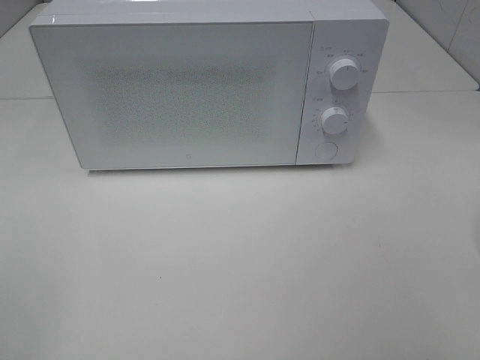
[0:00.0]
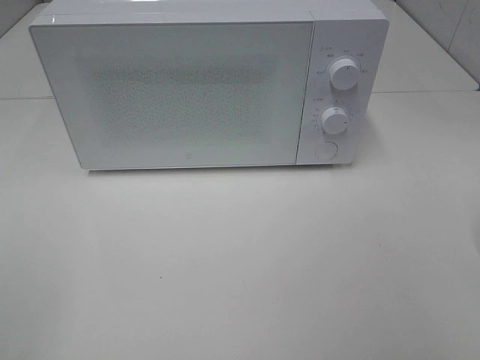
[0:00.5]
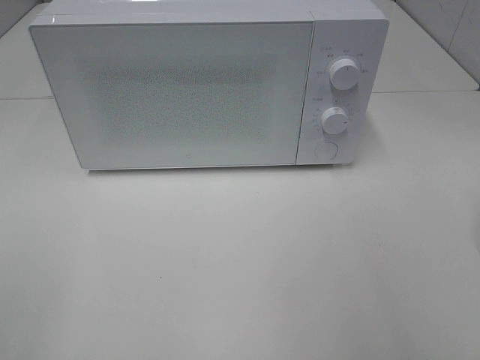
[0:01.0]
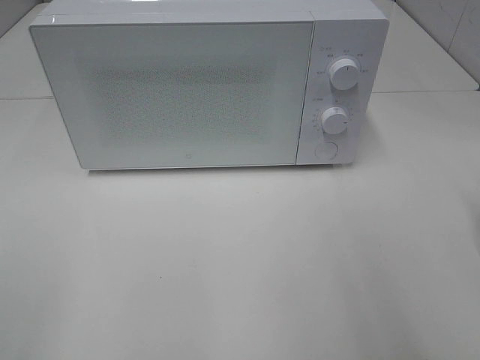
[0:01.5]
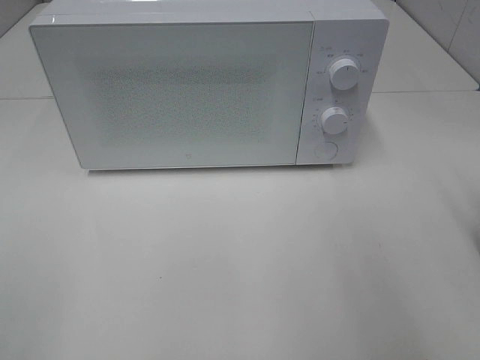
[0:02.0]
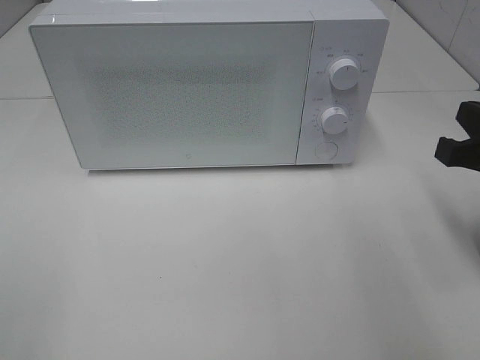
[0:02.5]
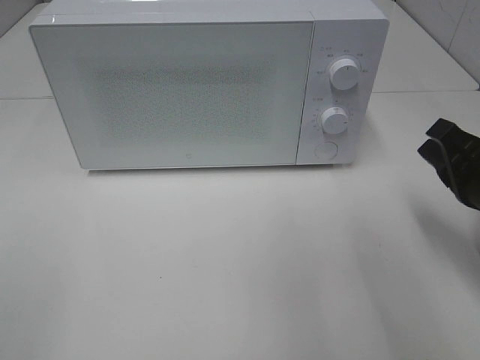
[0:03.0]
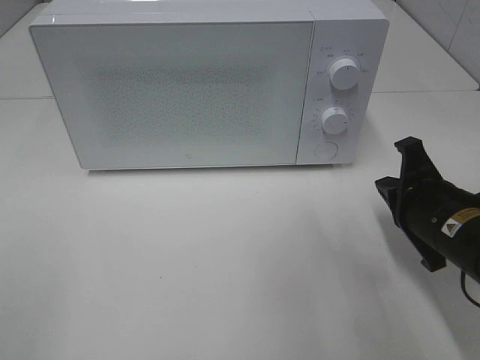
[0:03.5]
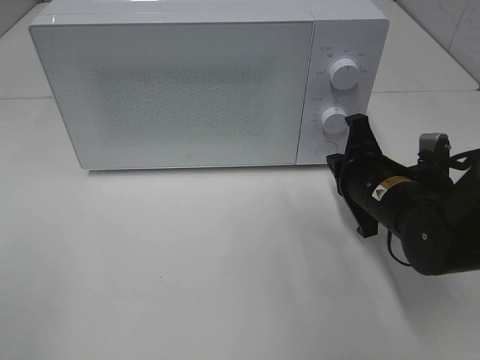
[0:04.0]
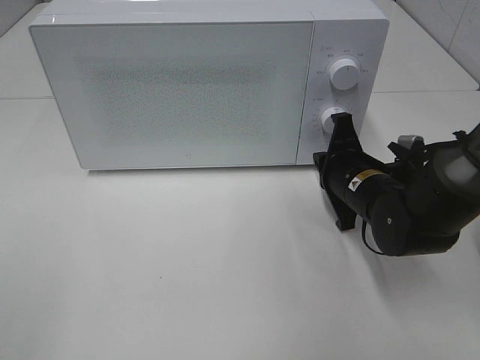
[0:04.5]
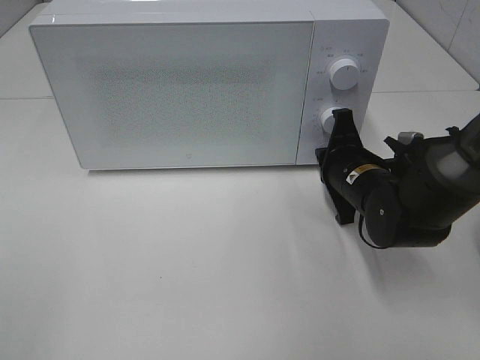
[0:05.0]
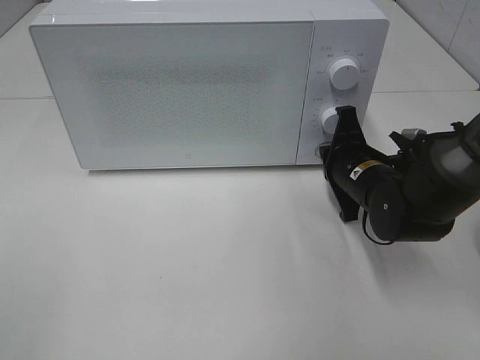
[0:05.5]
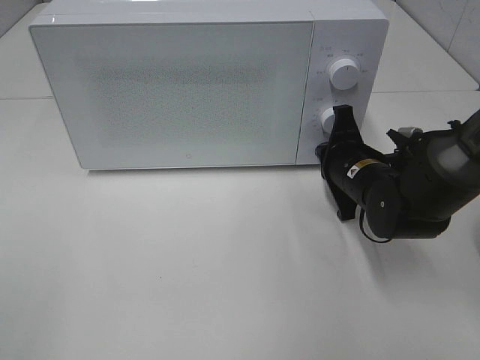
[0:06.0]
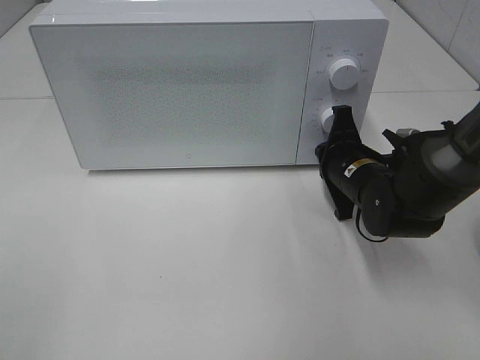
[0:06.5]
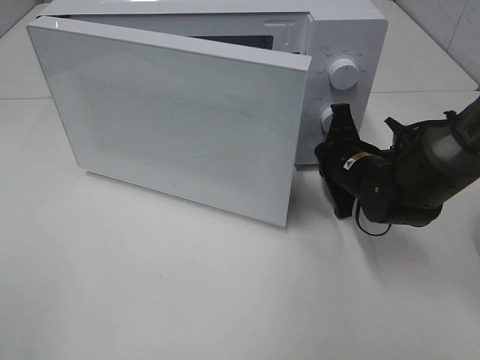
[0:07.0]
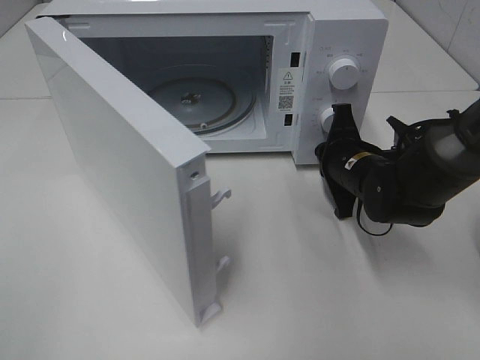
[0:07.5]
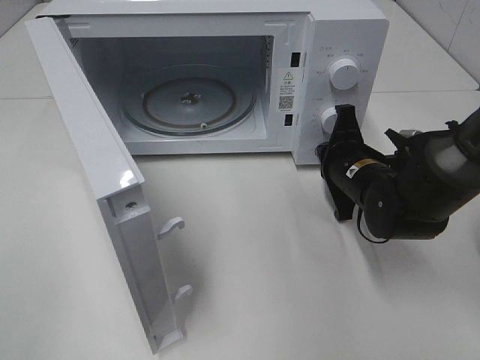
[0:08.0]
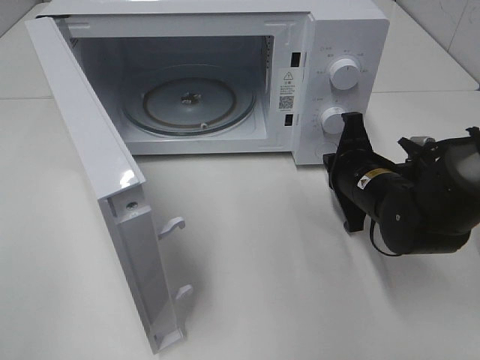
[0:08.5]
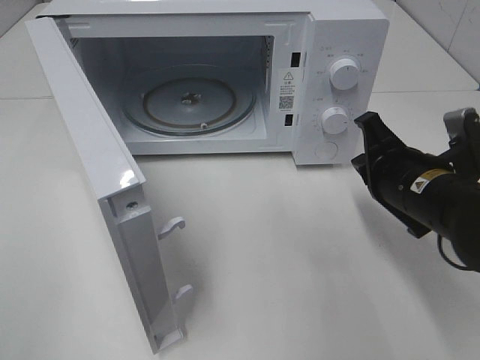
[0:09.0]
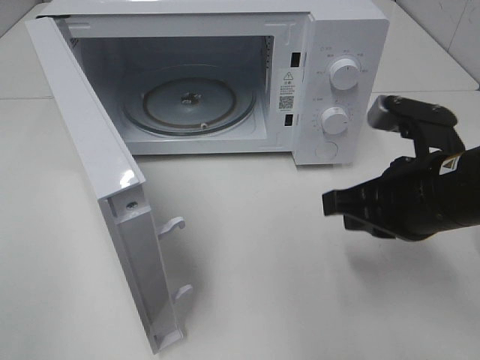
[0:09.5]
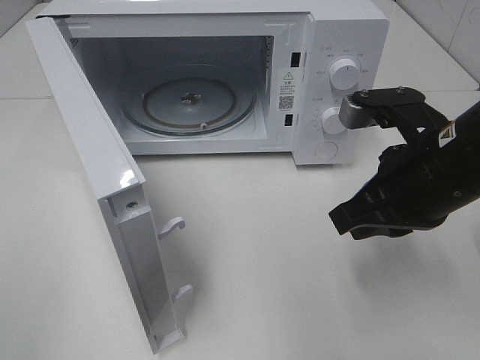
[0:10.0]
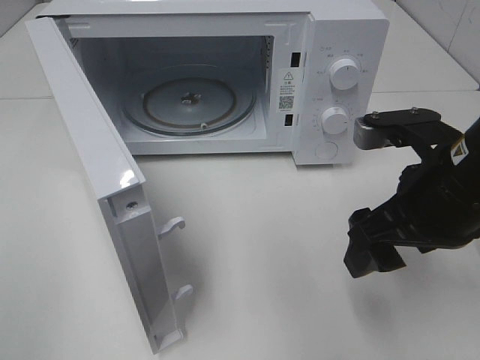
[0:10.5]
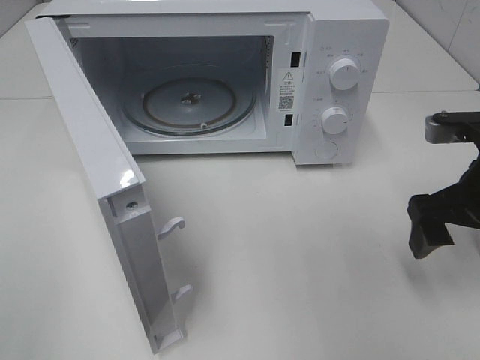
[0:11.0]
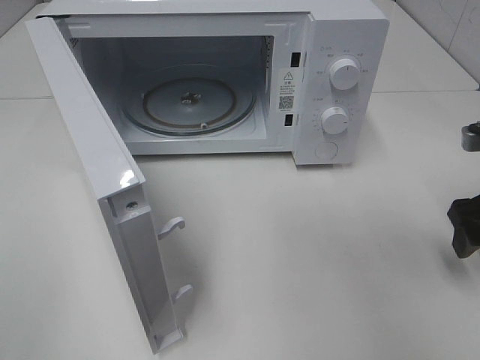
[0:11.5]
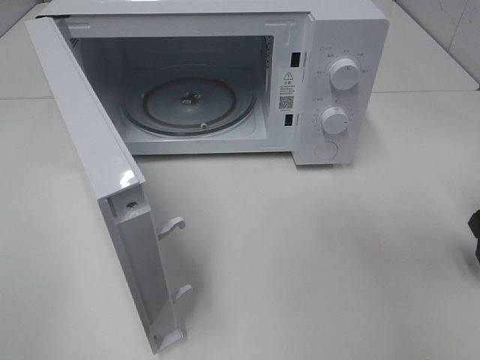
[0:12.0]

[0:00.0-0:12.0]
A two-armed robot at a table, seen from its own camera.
Task of the whole recording: Heat the burger.
Step, 0:00.0 to 0:08.0: Right hand: press the switch.
0:02.0 to 0:04.0: The right gripper travels downward, forward and to the left by roughly 25 cm, and closes.
0:04.0 to 0:06.0: The right gripper changes place by some 5 cm.
0:08.0 to 0:10.0: The right gripper is displaced upward and backward by about 15 cm.
0:10.0 to 0:12.0: The right gripper goes roughly 15 cm to the right, and opens.

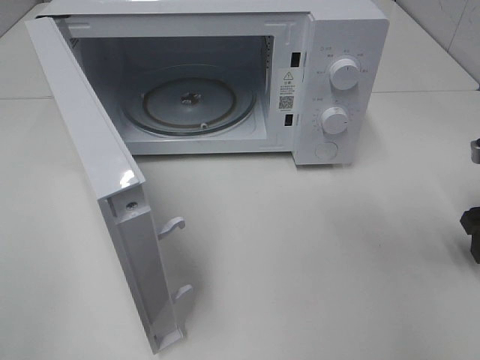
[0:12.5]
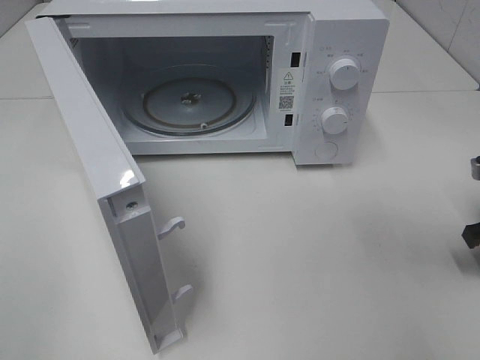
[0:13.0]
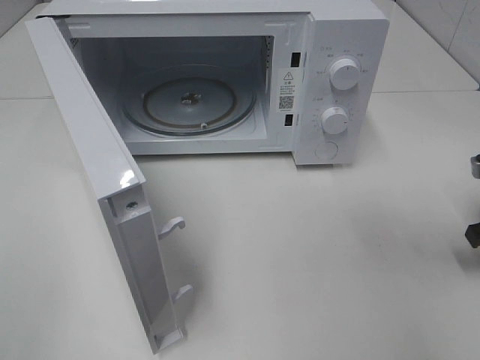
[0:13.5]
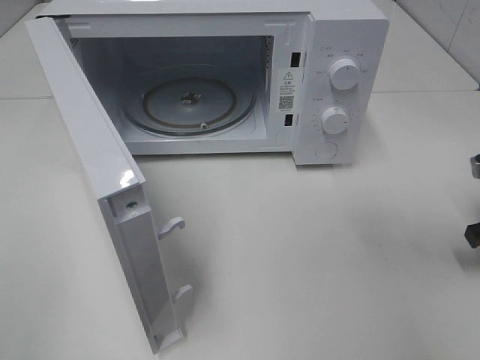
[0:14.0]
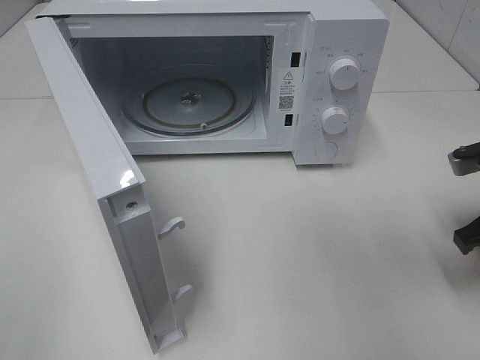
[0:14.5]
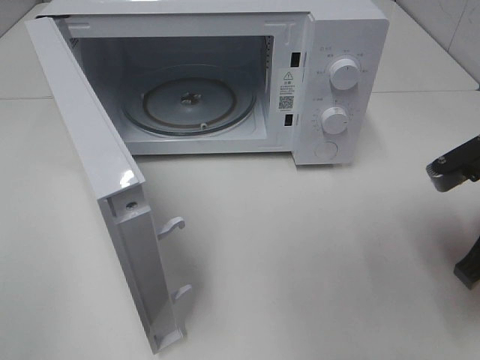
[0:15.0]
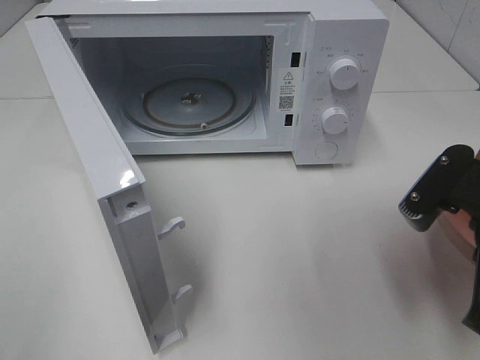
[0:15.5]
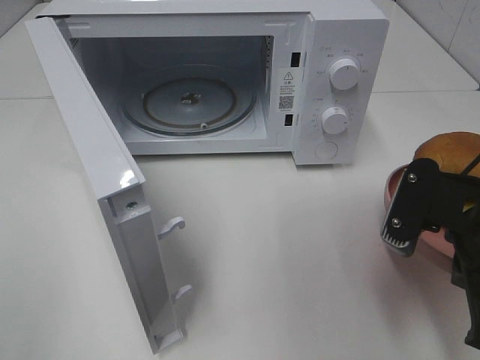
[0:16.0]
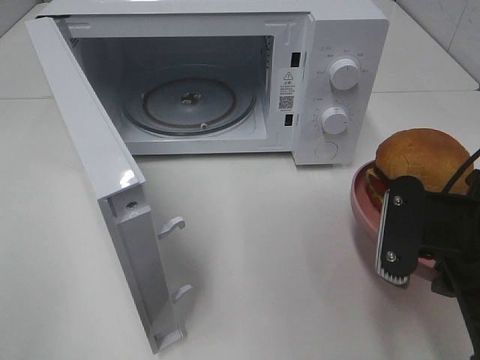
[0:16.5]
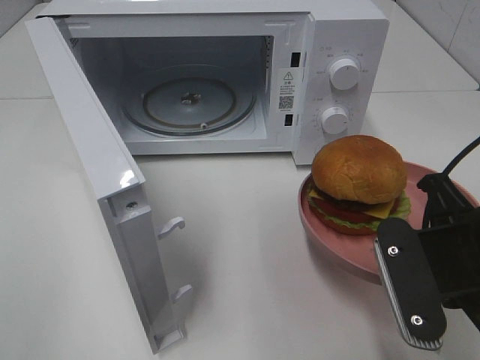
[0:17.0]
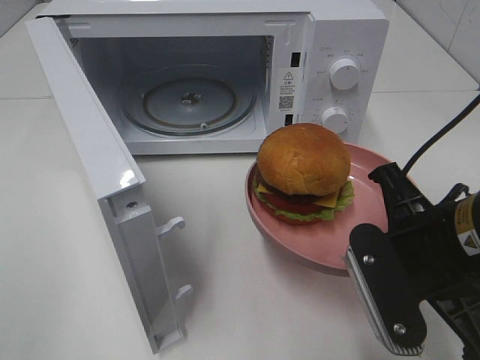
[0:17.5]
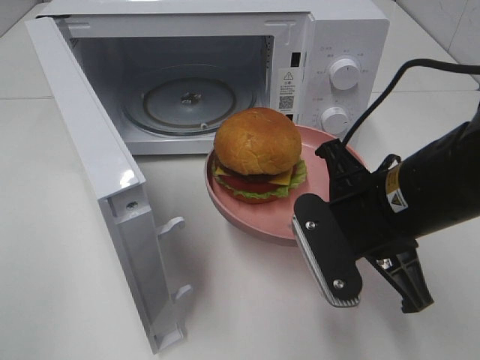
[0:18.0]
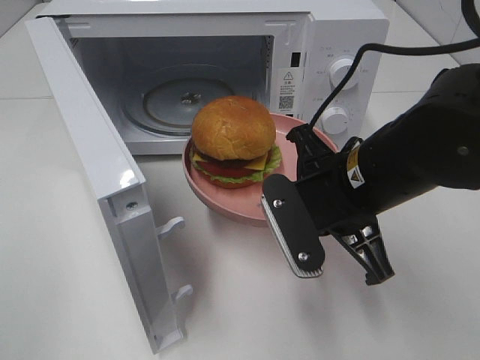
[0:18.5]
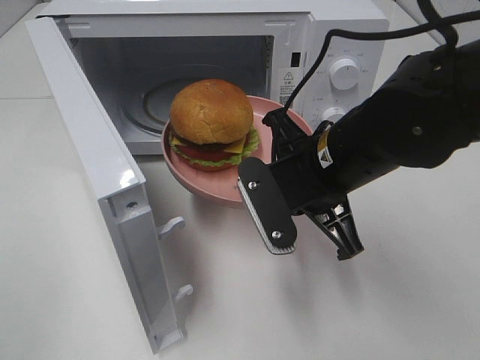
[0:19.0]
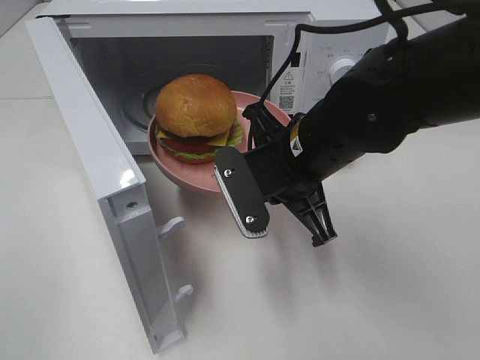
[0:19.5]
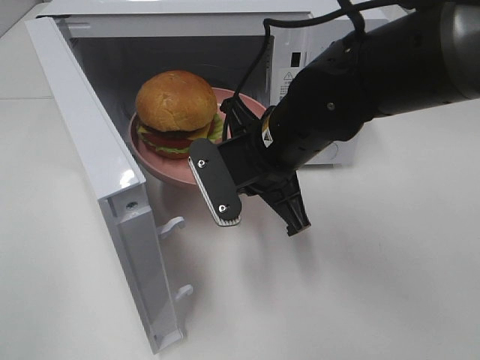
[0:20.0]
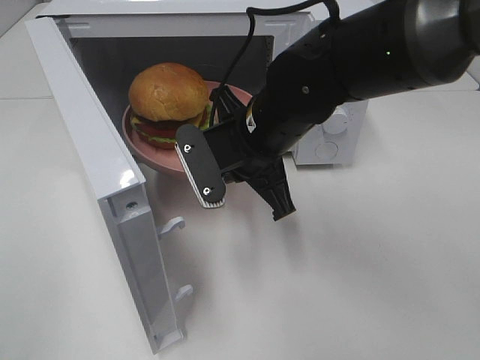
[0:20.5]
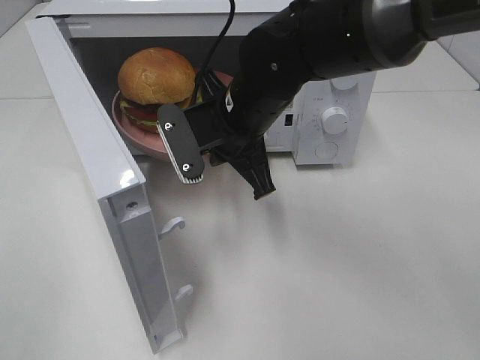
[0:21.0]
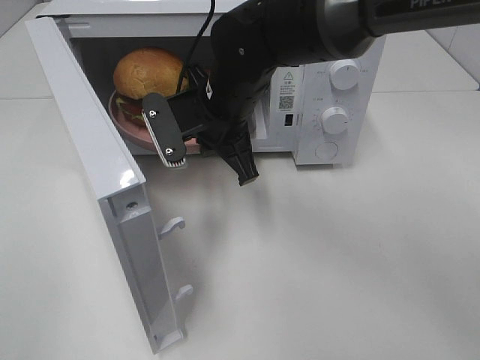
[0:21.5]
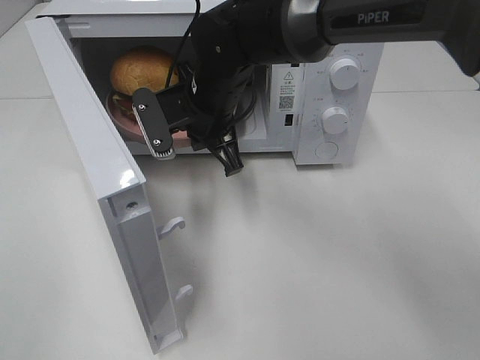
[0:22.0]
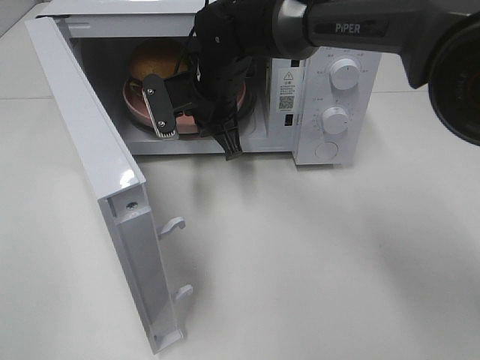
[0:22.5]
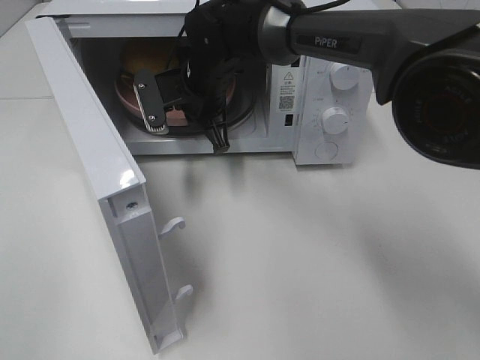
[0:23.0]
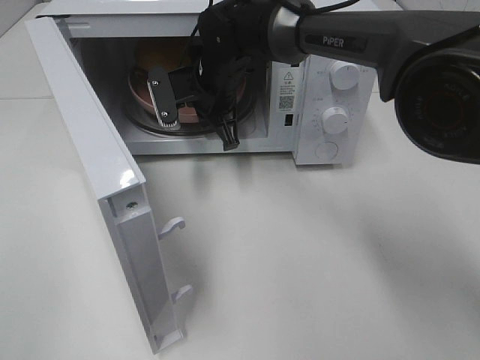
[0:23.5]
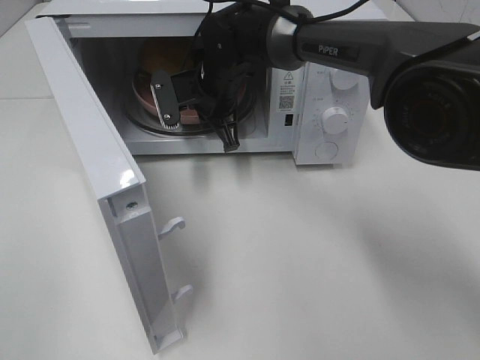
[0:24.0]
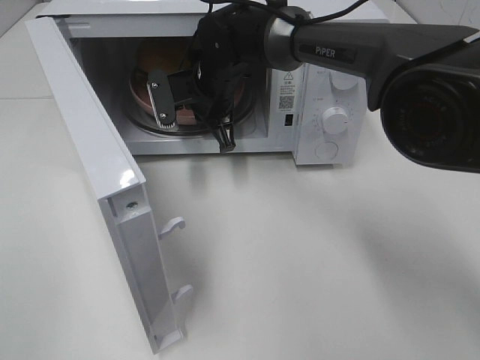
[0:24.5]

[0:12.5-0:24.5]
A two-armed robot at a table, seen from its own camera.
Task of the whole recording: Heat the burger.
0:12.5 to 0:14.5: The right gripper shifts by approximately 5 cm, and closes its fingers.
0:14.5 to 0:16.5: The right gripper goes some 15 cm to the left and backward.
0:16.5 to 0:18.5: The right gripper is displaced to the left and forward by about 10 cm.
0:18.5 to 0:20.5: The right gripper goes about 10 cm to the left and forward.
0:20.5 to 0:22.5: The right gripper heads forward and to the left, covering roughly 15 cm.
0:22.5 to 0:24.5: The grippers make only small movements.

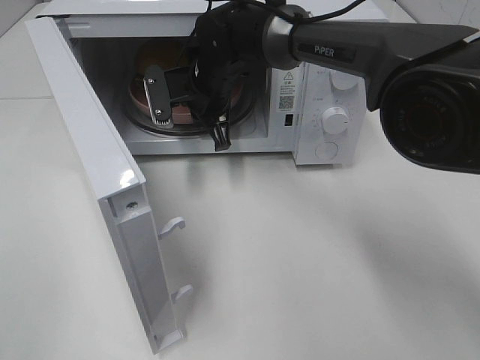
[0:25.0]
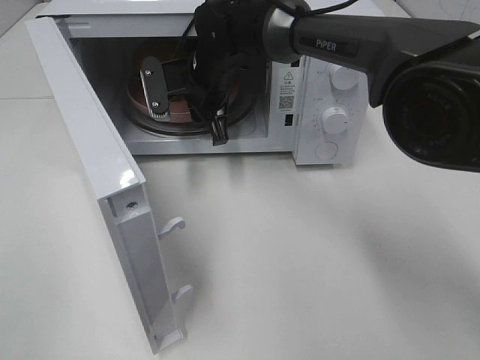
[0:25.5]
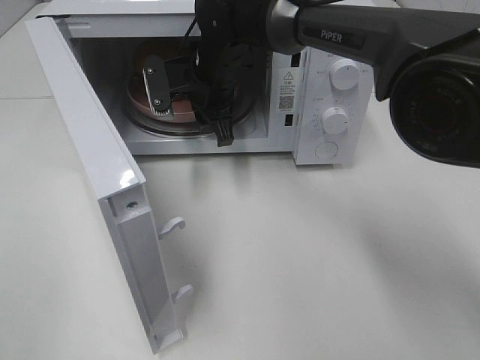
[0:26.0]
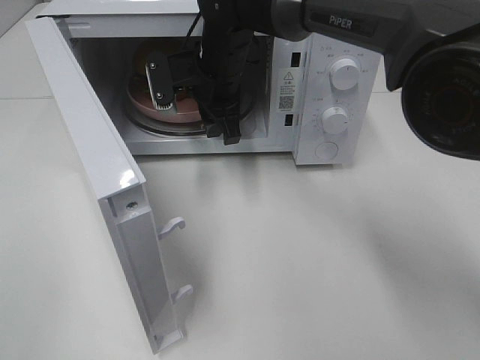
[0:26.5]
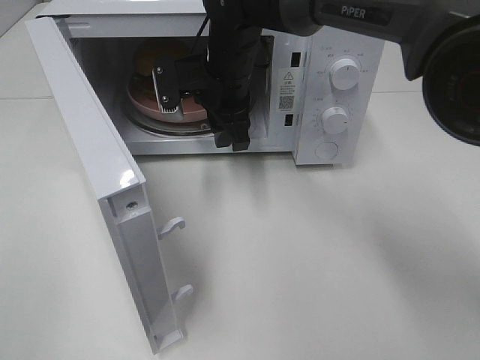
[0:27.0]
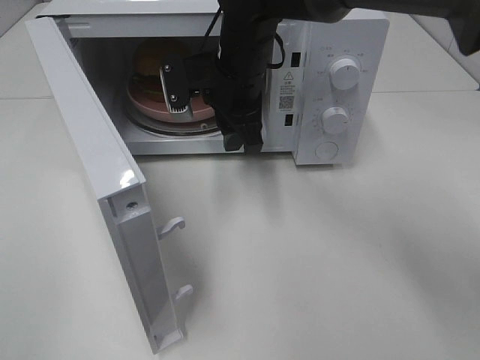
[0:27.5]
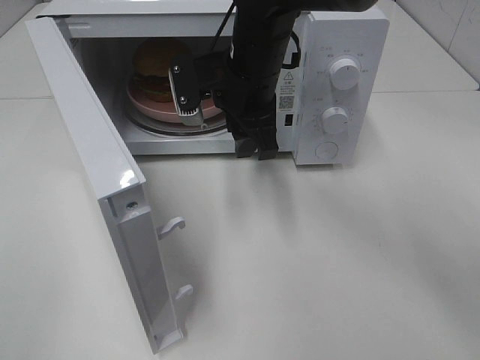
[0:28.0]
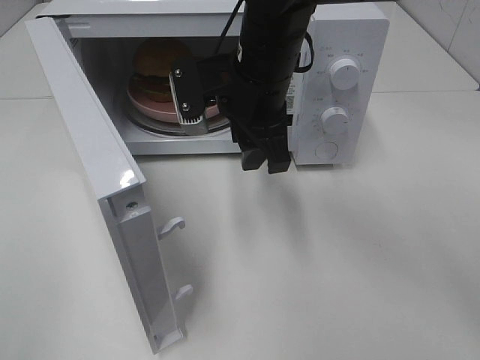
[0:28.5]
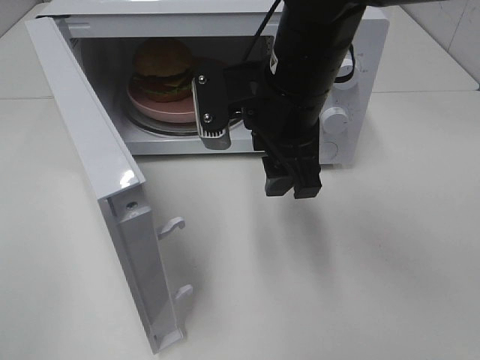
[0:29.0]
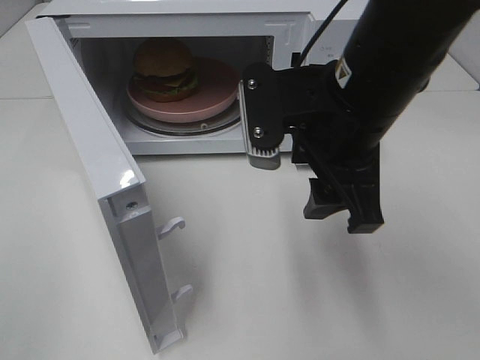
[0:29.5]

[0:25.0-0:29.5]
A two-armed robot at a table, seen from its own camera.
Task of the whole recording: Heat the burger.
0:25.0 to 0:27.0: The right gripper opens.
0:27.0 to 0:29.5: The right gripper shifts roughly 20 cm backward and to the right.
